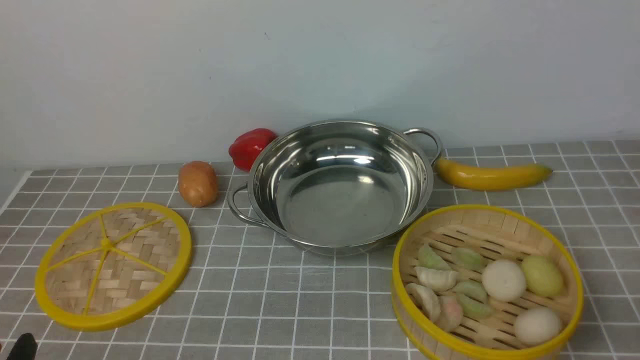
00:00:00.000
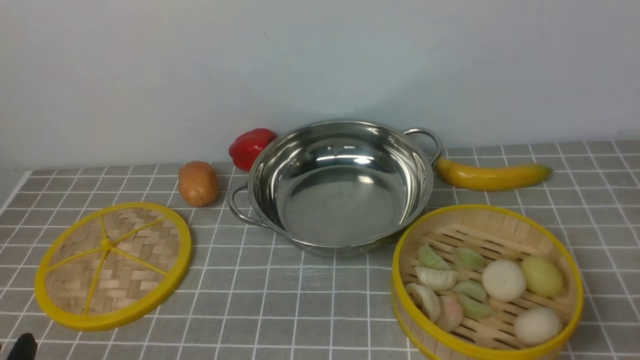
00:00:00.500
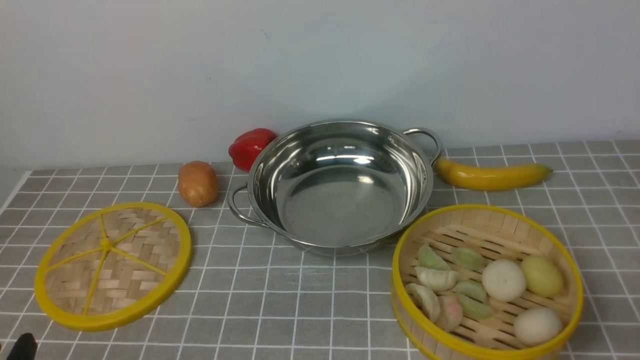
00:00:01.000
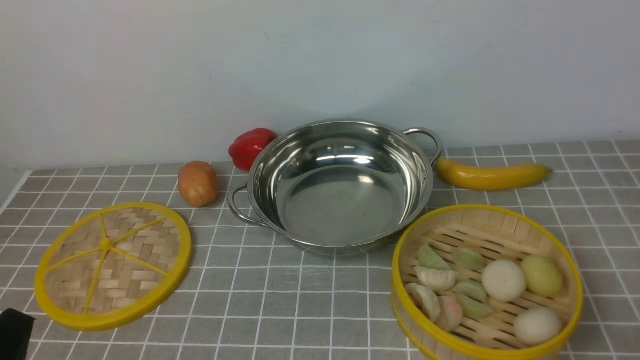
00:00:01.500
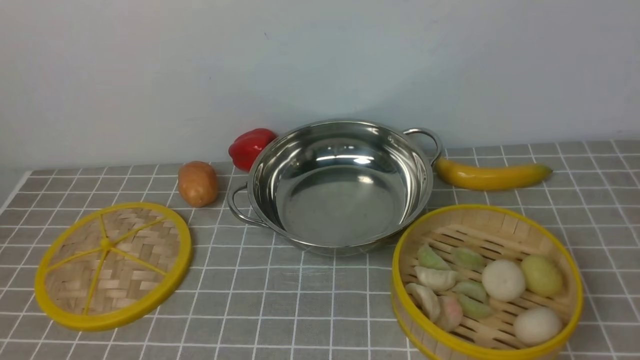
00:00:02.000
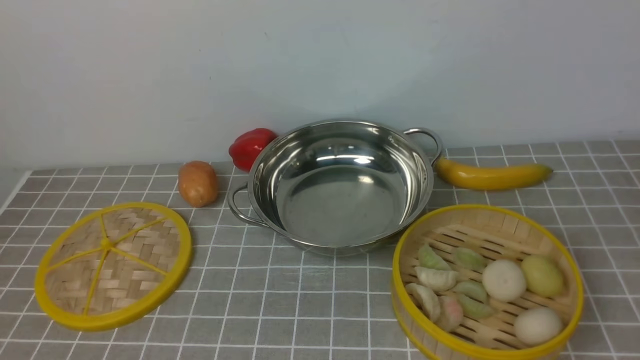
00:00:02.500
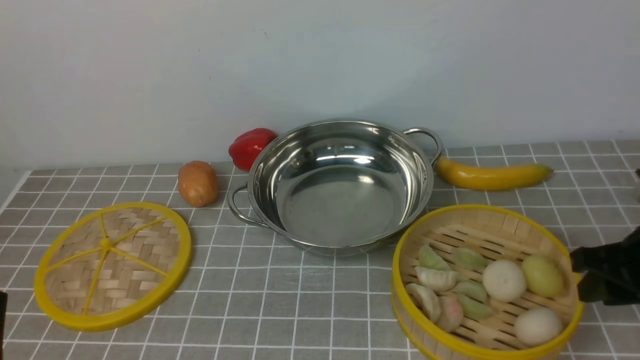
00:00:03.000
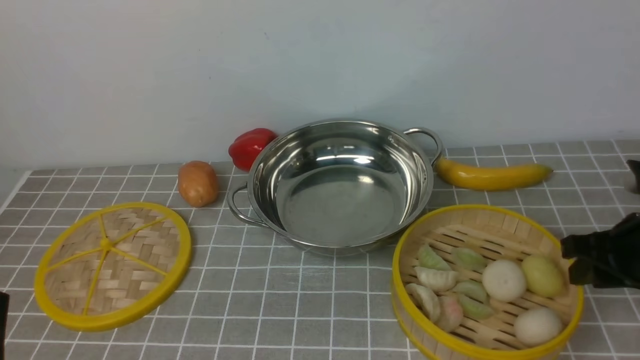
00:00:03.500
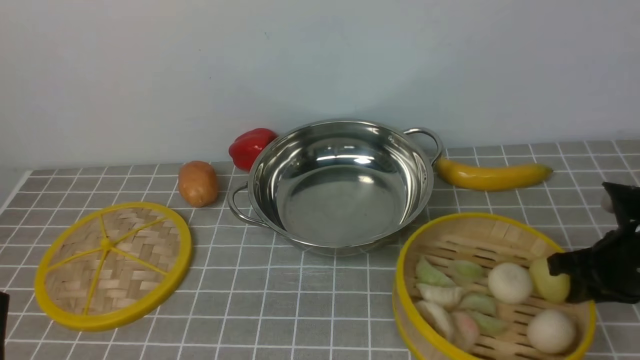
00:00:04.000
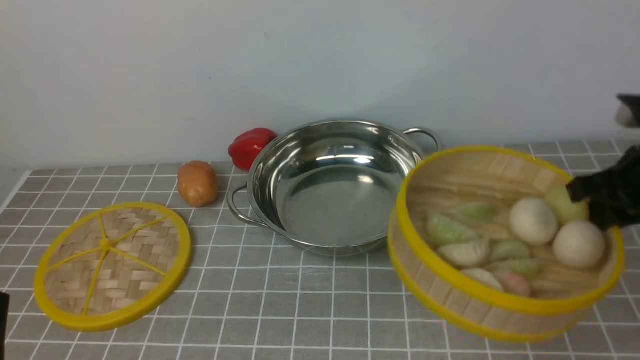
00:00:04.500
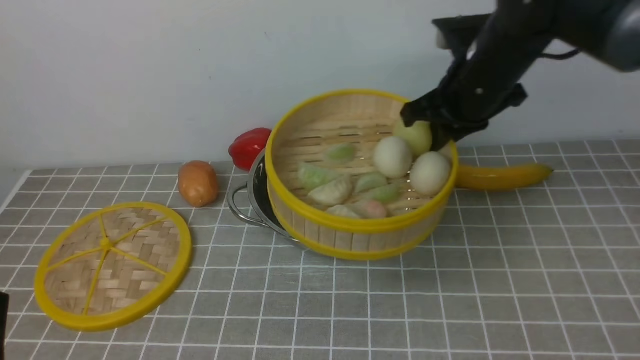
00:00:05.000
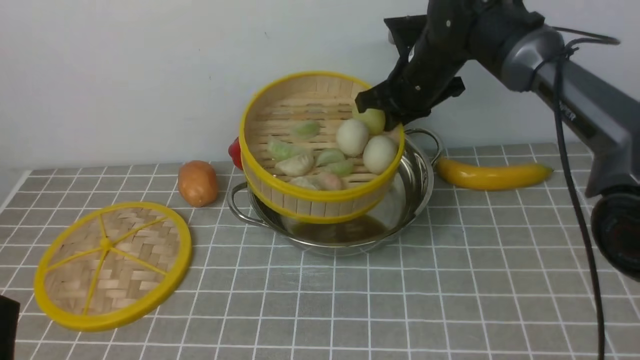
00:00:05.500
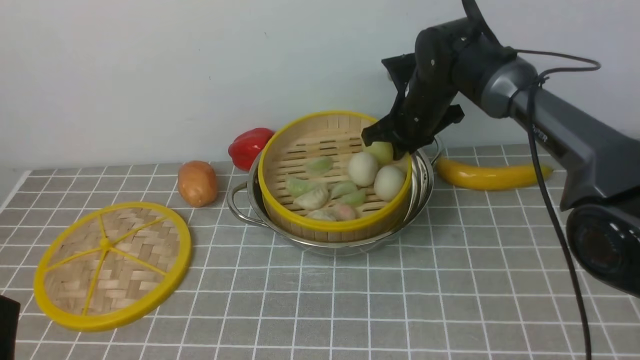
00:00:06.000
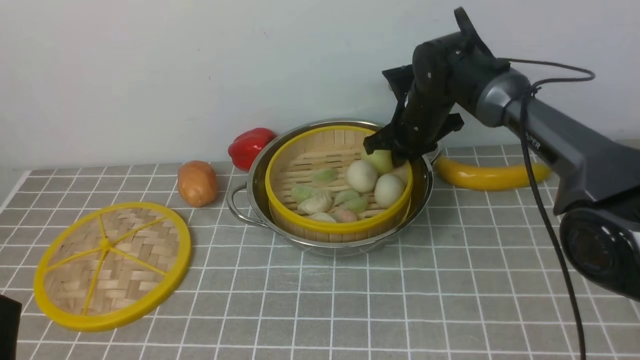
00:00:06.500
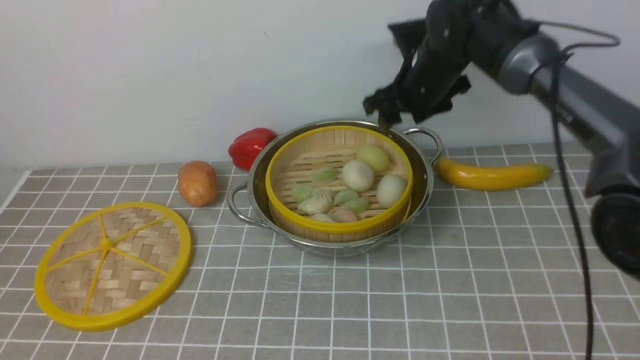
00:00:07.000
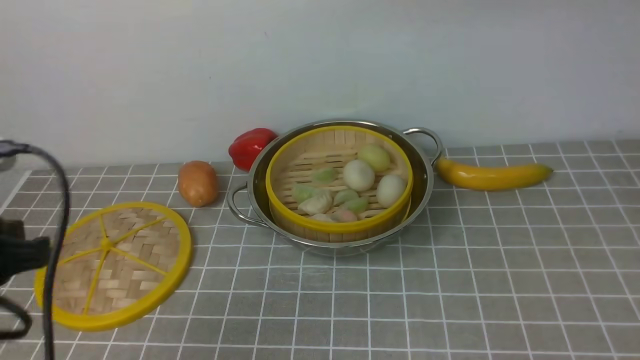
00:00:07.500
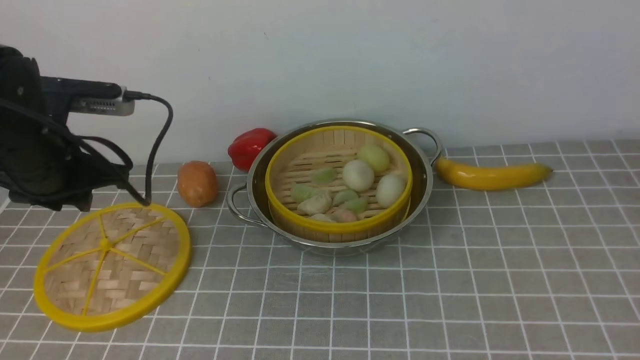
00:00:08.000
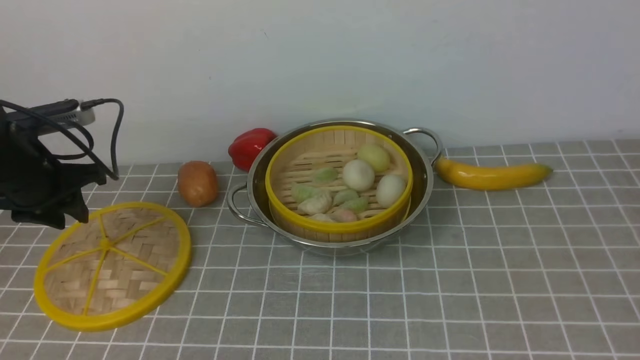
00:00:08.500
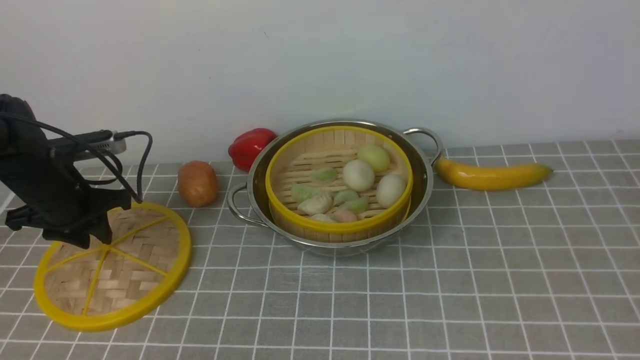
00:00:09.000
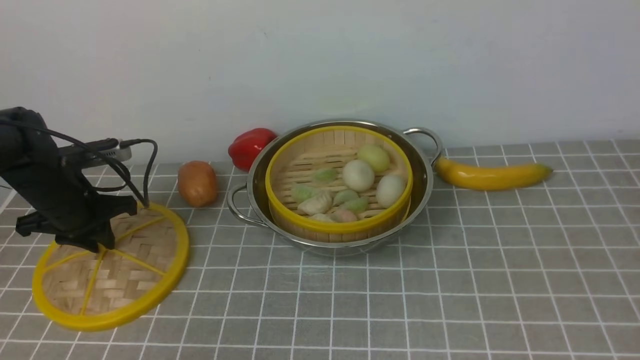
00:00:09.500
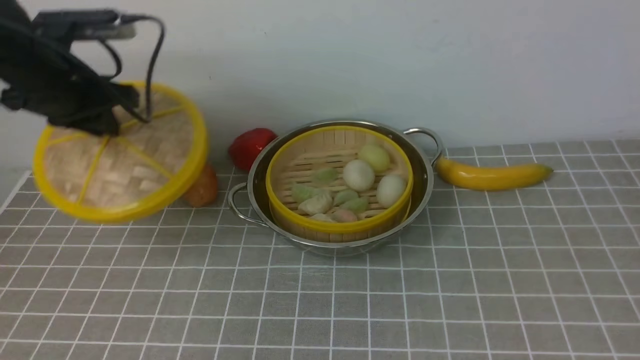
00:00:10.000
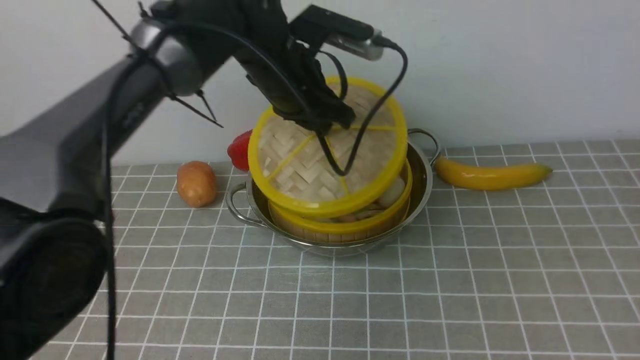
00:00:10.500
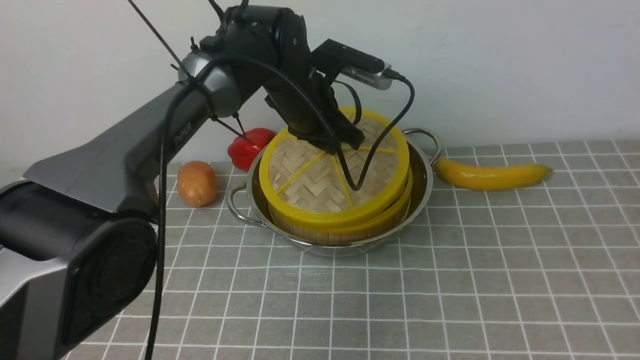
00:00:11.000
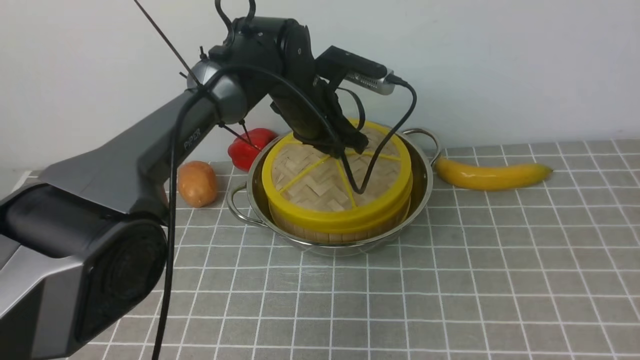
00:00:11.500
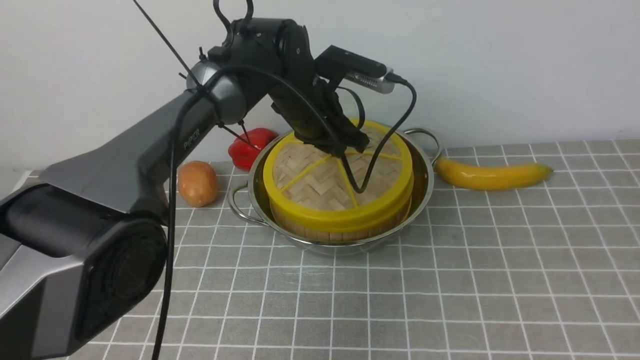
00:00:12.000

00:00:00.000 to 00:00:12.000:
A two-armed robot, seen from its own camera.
Task of the whole recording: place the steamer in the pot on the grey tablecloth, and put the lid on the steamer.
Step, 00:00:00.000 to 00:00:04.000: use the right arm to lift the steamer closest to it.
Step, 00:00:04.500 to 00:00:06.500: use the right arm to put the steamer into the iron steamer pot in the middle.
Step, 00:00:07.000 to 00:00:09.500: use the left arm to lift the lid of the steamer.
00:00:02.000 to 00:00:04.000: The right gripper travels forward and downward by some 30 cm.
00:00:04.000 to 00:00:06.000: The right gripper is displaced forward and to the left by about 30 cm.
00:00:06.000 to 00:00:08.000: The left gripper moves forward, about 25 cm, while the right gripper shifts approximately 50 cm backward and upward, and opens up.
00:00:08.000 to 00:00:10.000: The left gripper is displaced forward by approximately 10 cm, moves roughly 10 cm downward and comes back, and closes its fingers, while the right gripper goes roughly 10 cm backward and downward.
00:00:10.000 to 00:00:12.000: The left gripper heads to the right, covering about 20 cm.

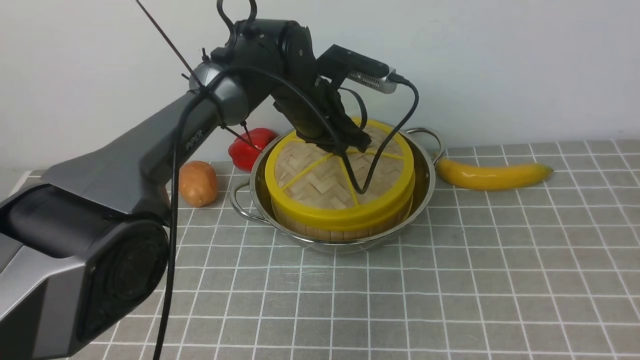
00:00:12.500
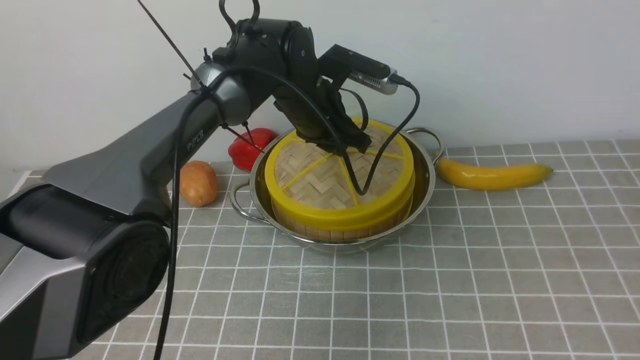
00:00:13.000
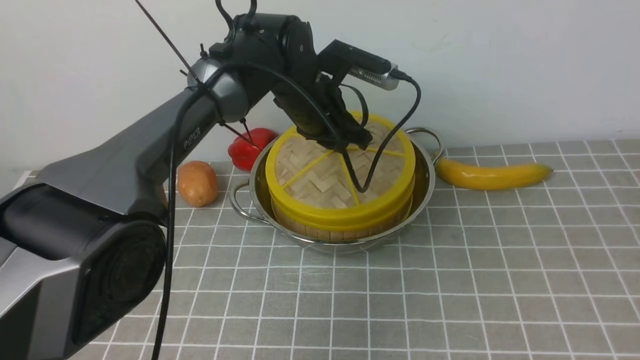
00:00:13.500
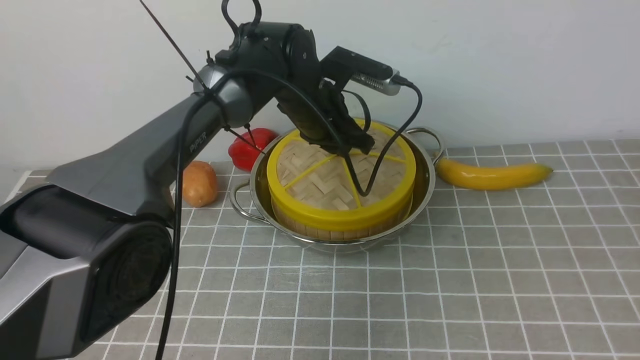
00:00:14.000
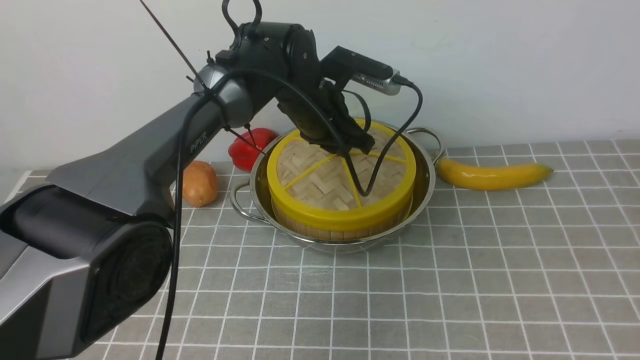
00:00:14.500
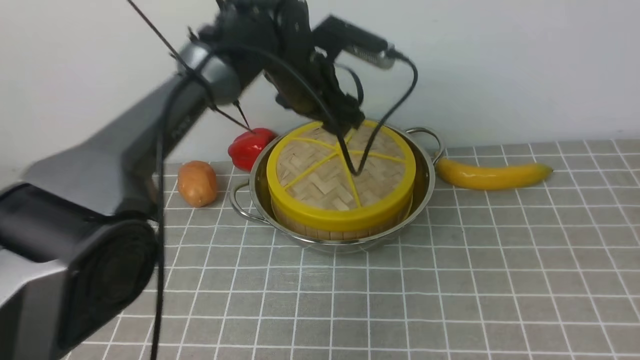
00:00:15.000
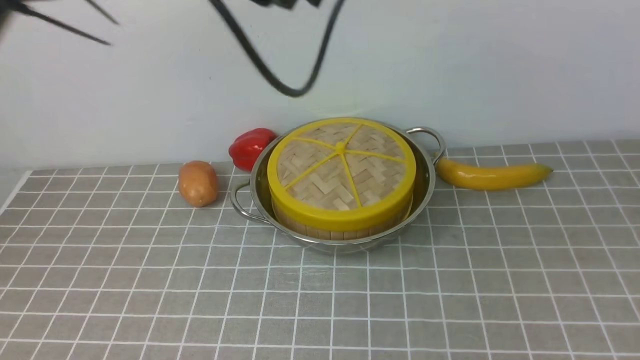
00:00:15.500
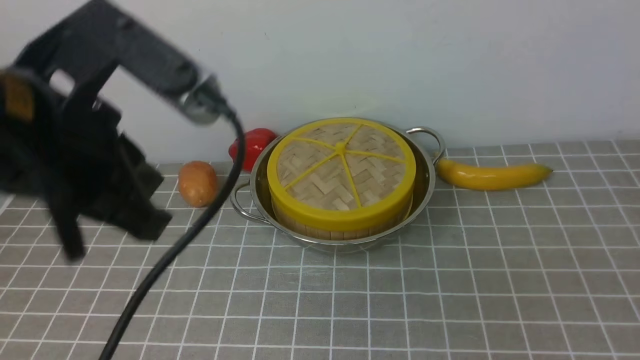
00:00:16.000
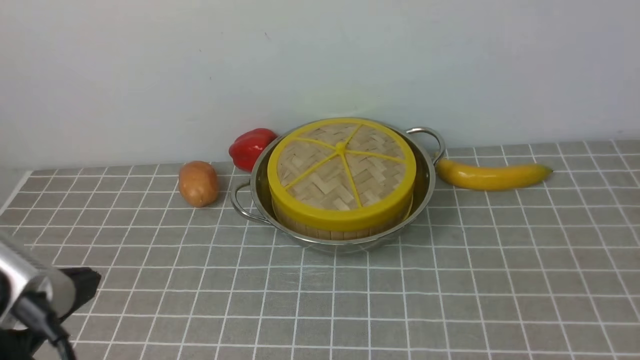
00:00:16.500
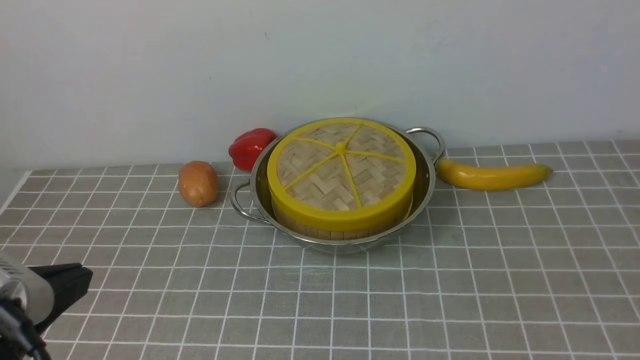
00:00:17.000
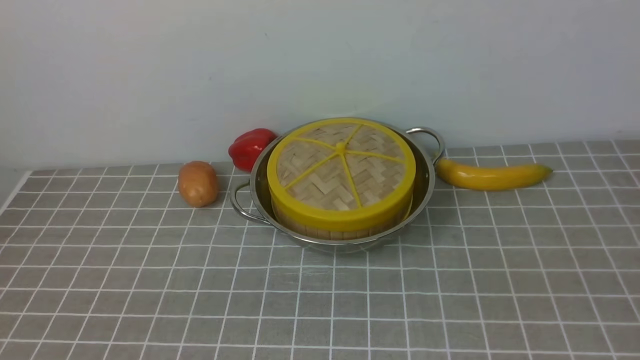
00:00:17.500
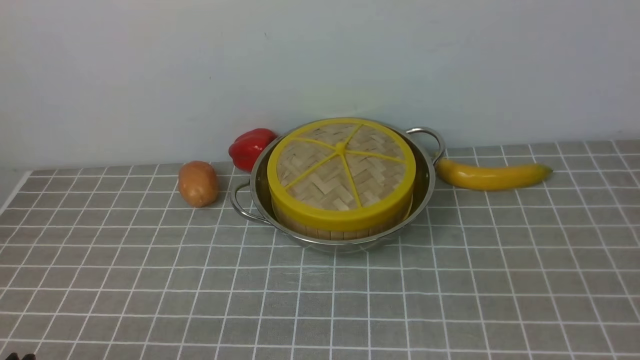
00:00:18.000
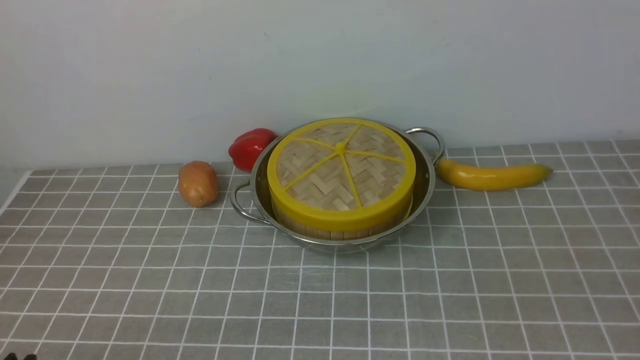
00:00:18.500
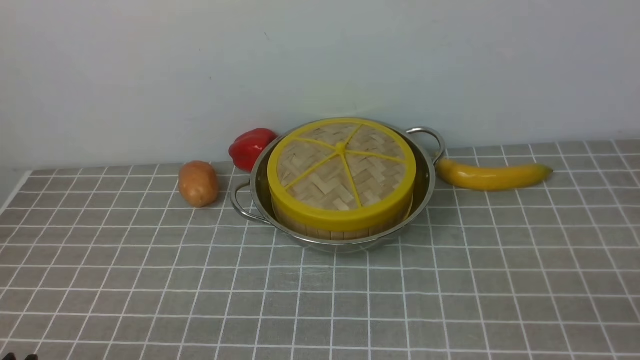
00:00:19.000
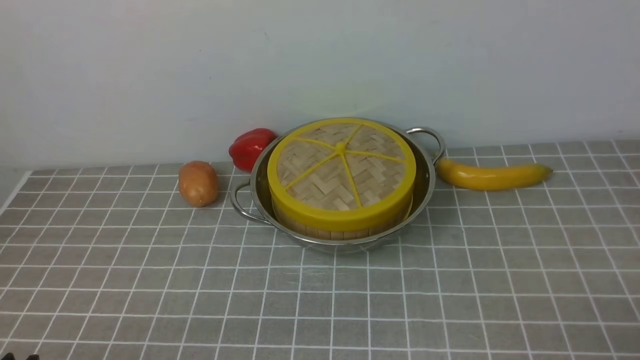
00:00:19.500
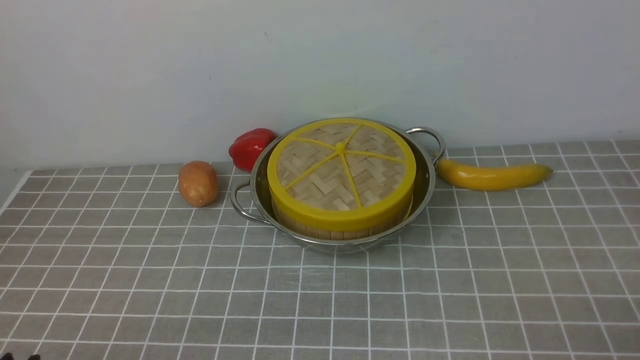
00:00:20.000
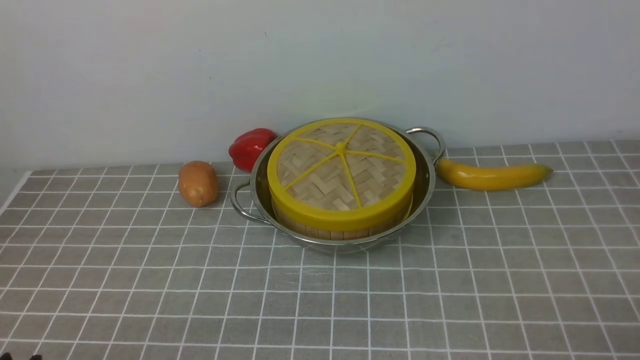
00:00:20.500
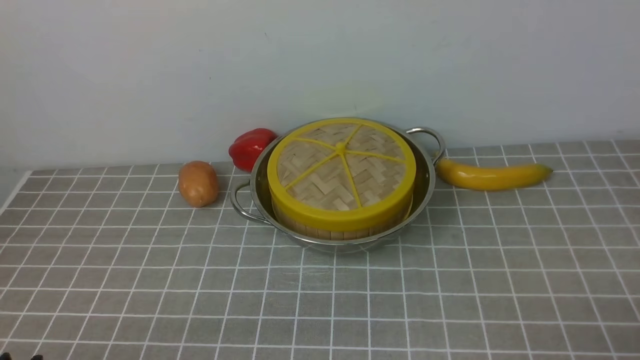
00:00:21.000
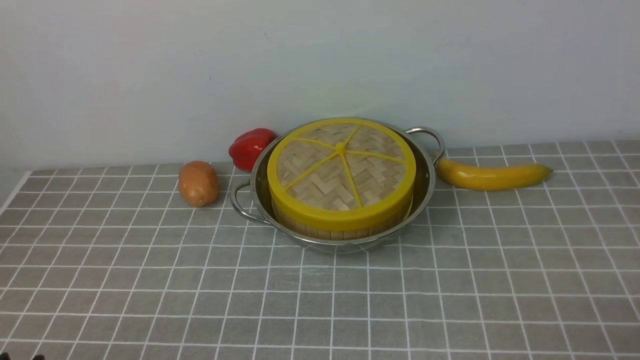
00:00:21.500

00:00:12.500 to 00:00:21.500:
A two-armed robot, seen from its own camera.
Task of the whole recording: place the steamer in the pot on the grey tablecloth, and put the lid on the steamer.
Step, 00:00:12.500 to 00:00:14.500: use the left arm to place the steamer lid on the steamer.
00:00:12.500 to 00:00:14.500: Neither gripper changes place.
00:00:14.500 to 00:00:17.000: The left gripper moves backward and to the left, about 40 cm, and closes its fingers, while the right gripper is displaced downward and to the right by roughly 10 cm, and closes its fingers.
00:00:17.000 to 00:00:19.500: The left gripper is displaced downward by about 15 cm, and opens up.
00:00:19.500 to 00:00:21.500: Neither gripper changes place.
